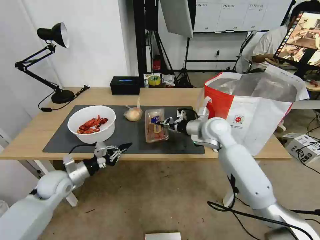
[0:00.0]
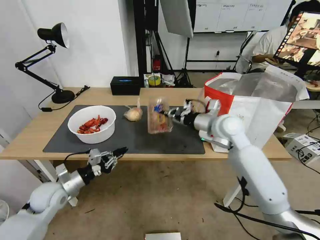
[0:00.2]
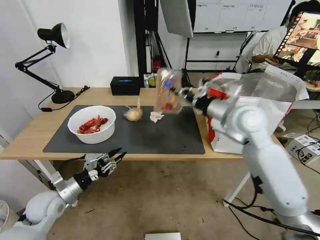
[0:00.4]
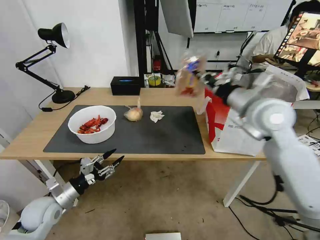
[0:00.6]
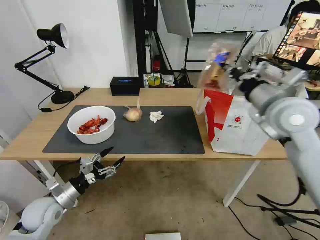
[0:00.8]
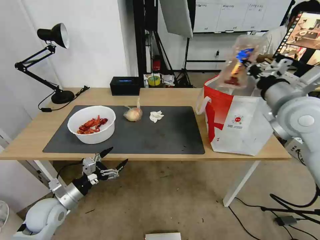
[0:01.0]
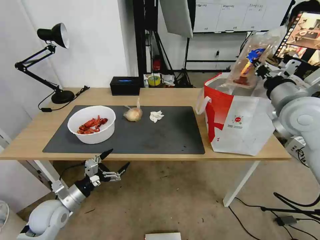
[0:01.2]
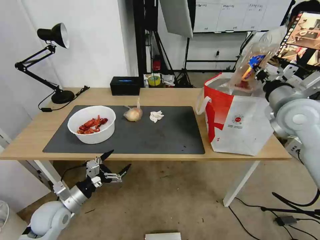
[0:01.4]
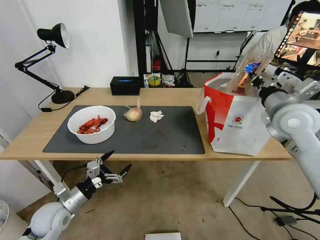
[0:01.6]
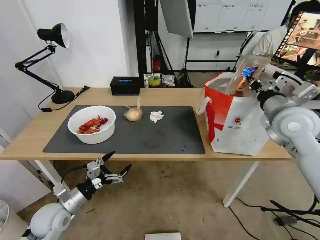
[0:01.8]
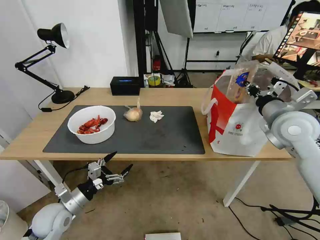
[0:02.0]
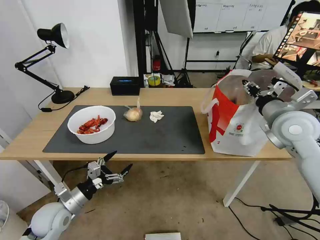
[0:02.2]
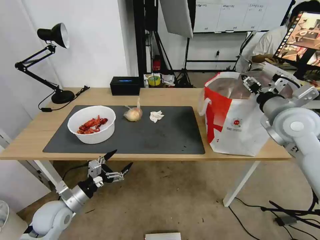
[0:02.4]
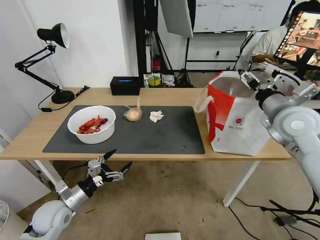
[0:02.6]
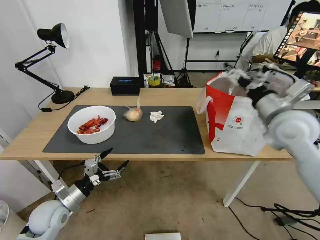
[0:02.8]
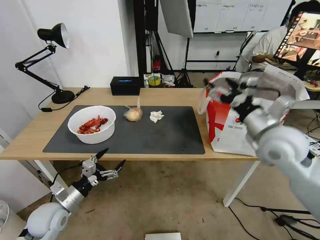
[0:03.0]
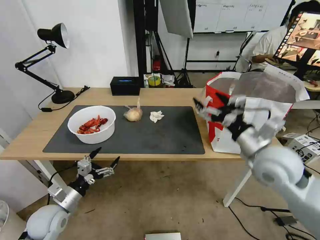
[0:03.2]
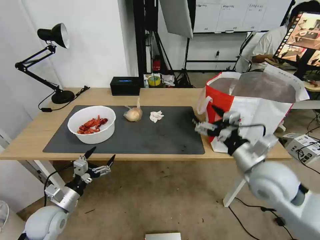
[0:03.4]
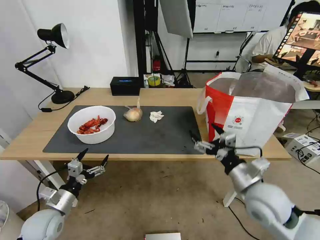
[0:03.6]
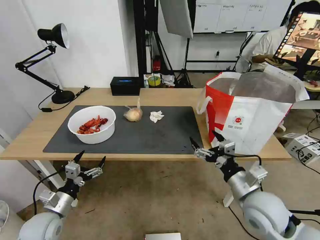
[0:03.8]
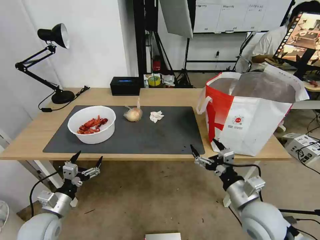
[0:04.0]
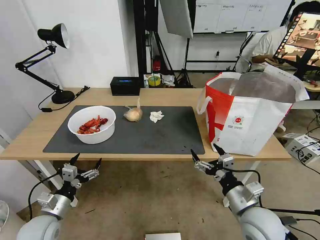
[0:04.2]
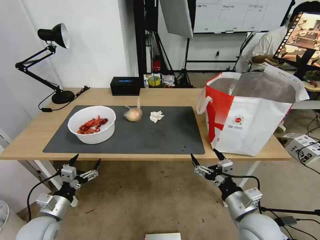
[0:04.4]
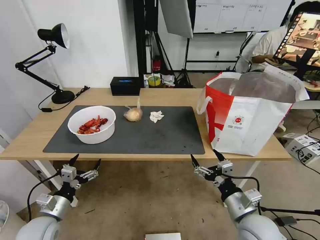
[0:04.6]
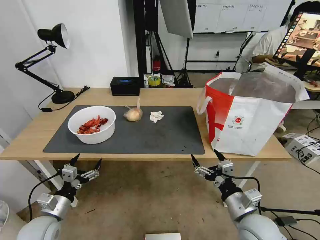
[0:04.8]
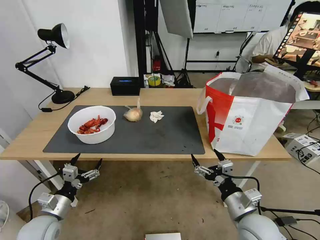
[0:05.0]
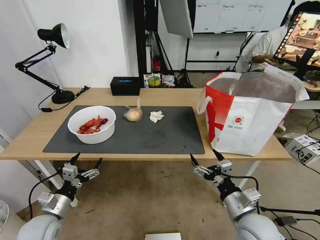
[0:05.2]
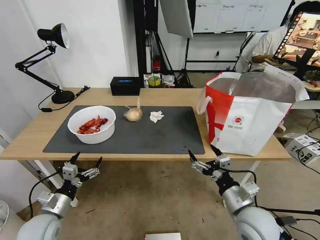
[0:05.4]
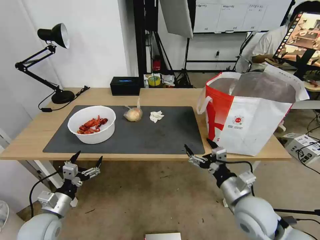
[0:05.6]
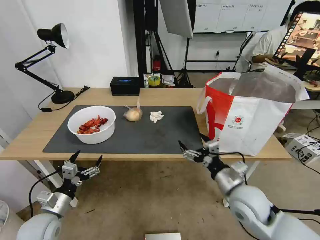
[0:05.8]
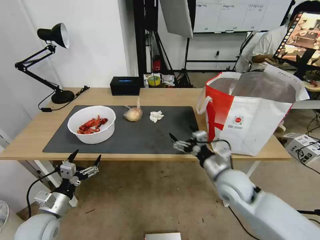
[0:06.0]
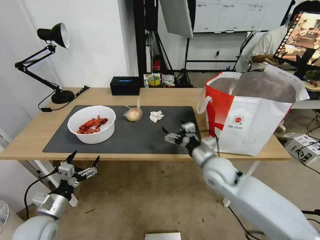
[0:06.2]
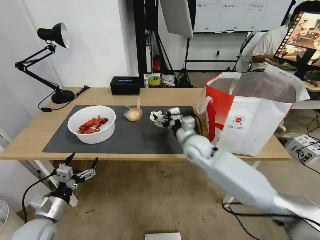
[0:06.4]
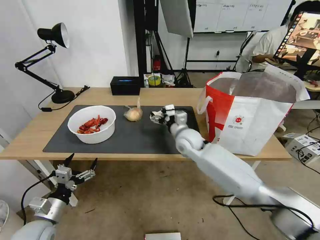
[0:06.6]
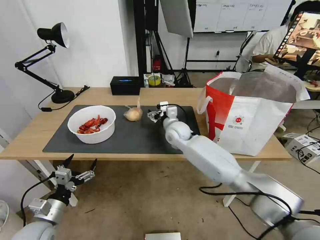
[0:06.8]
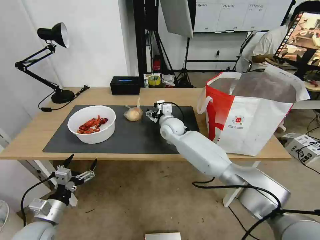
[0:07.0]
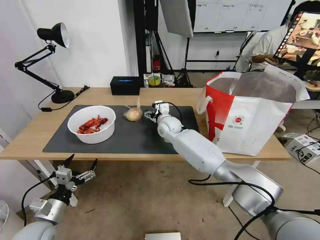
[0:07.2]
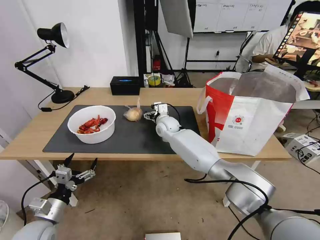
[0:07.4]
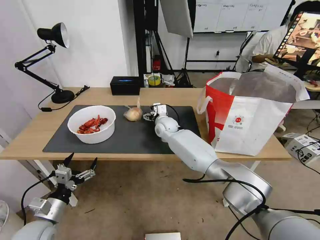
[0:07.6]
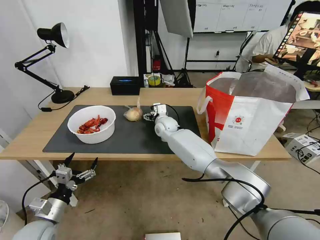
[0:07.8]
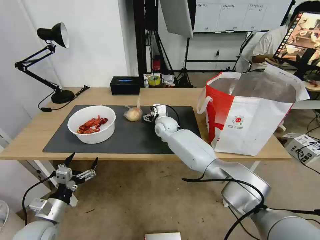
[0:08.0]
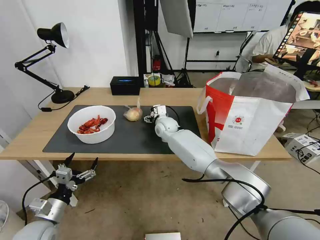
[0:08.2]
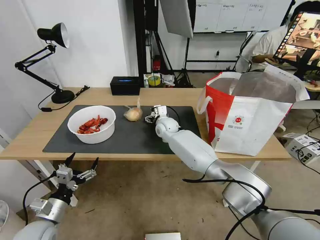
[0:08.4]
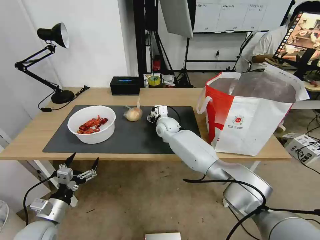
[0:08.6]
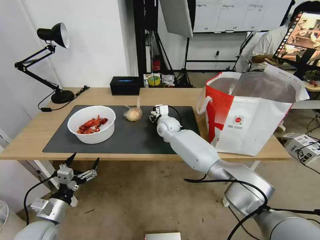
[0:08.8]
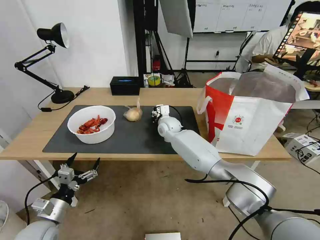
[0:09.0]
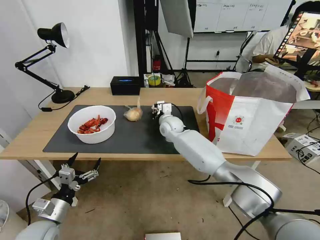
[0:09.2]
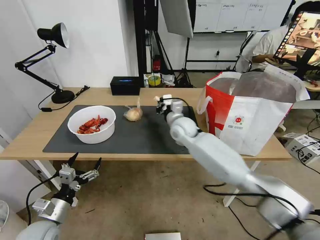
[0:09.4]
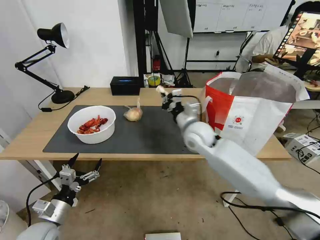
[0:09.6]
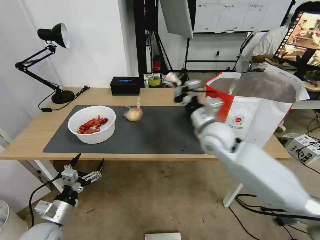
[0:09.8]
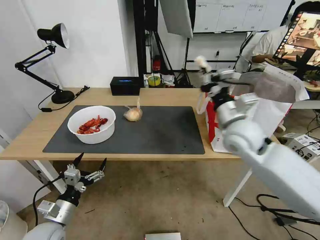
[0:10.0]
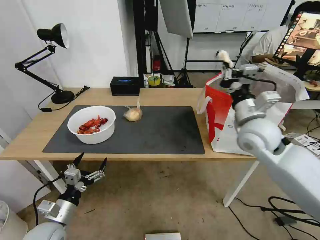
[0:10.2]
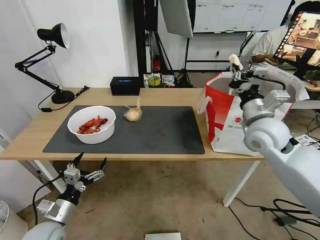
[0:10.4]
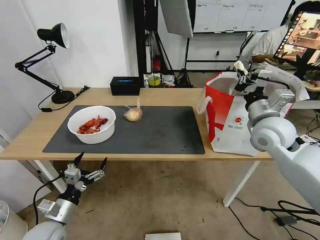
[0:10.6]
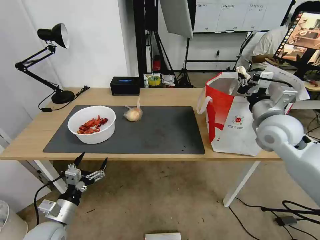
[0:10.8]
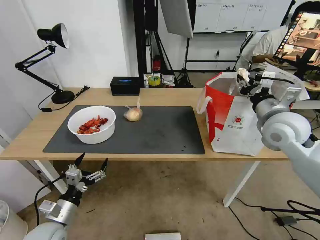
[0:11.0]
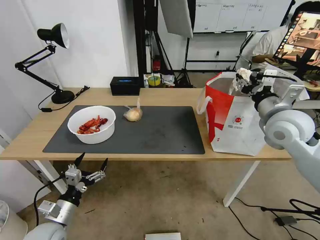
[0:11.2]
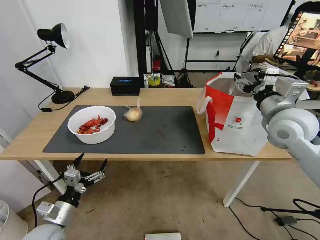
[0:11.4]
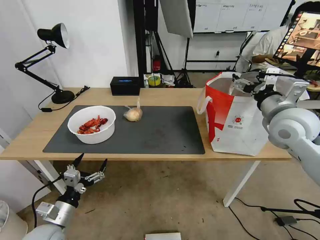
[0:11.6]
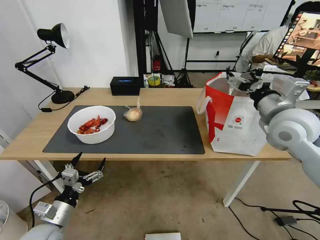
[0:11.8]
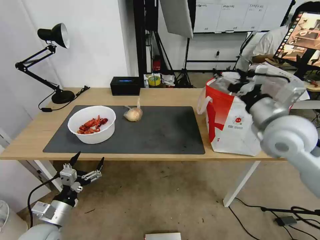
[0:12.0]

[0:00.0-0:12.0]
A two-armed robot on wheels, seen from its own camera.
Task of the whole recording: Pick up the trash from the table and place it into the takeout bag.
0:00.0 to 0:01.6: The left gripper moves backward, roughly 10 cm, and opens. The right gripper moves to the right, upward and backward, some 20 cm.
0:01.6 to 0:03.0: The right gripper moves backward, roughly 5 cm, and opens.
0:03.0 to 0:04.4: The right gripper travels downward and backward by approximately 25 cm.
0:04.4 to 0:06.0: The right gripper shifts approximately 10 cm forward.
0:06.0 to 0:07.6: The right gripper heads forward and to the left, covering roughly 35 cm.
0:07.6 to 0:09.0: The right gripper closes.
0:09.0 to 0:10.4: The right gripper heads to the right, backward and upward, covering approximately 35 cm.
0:10.4 to 0:12.0: The right gripper shifts by some 5 cm, and opens its fingers.

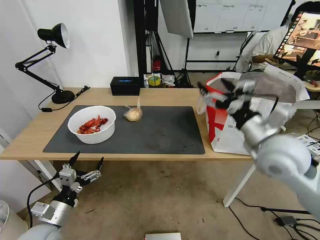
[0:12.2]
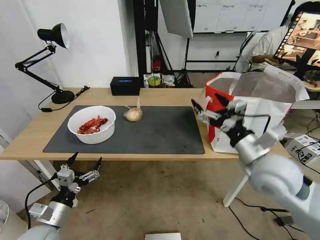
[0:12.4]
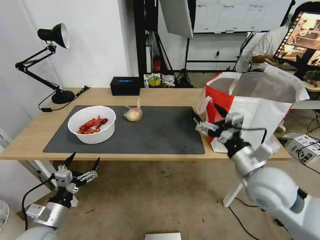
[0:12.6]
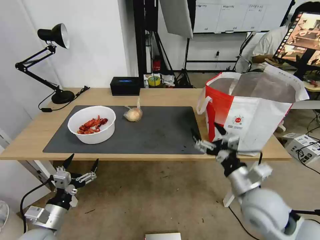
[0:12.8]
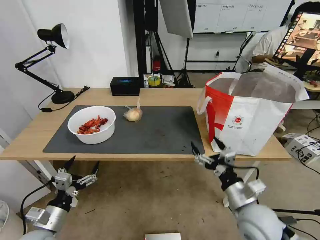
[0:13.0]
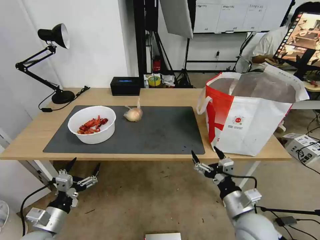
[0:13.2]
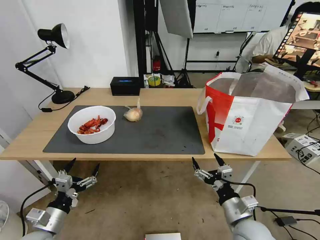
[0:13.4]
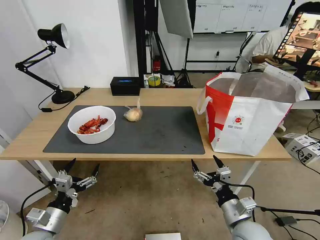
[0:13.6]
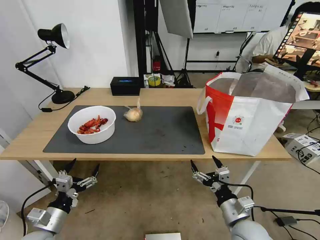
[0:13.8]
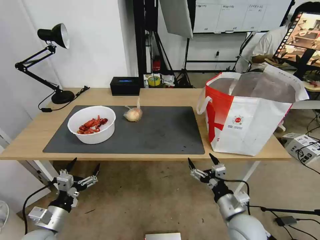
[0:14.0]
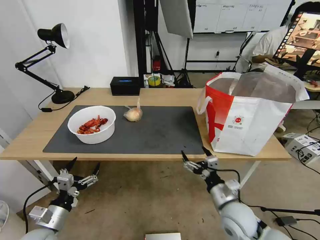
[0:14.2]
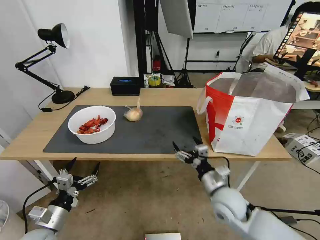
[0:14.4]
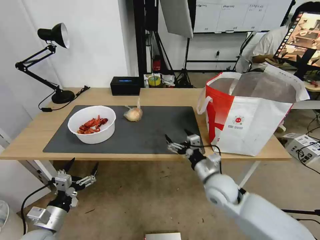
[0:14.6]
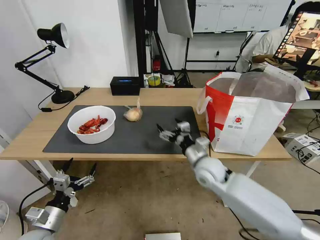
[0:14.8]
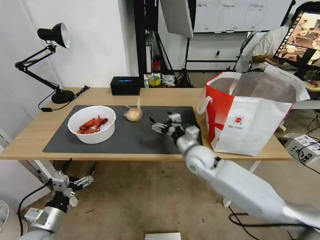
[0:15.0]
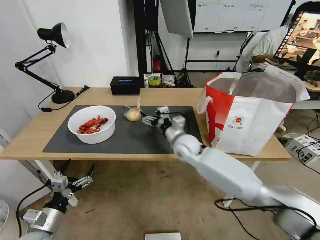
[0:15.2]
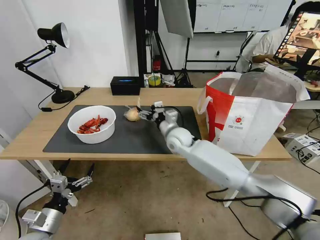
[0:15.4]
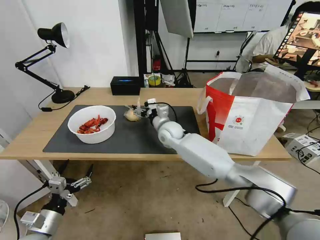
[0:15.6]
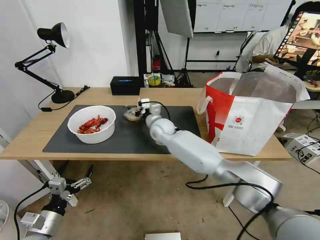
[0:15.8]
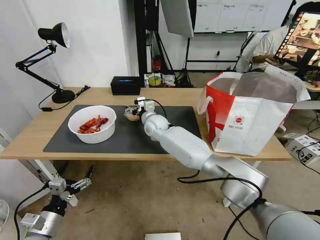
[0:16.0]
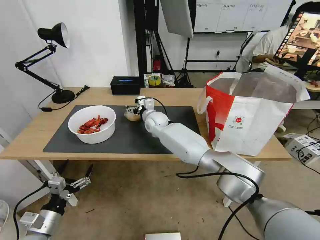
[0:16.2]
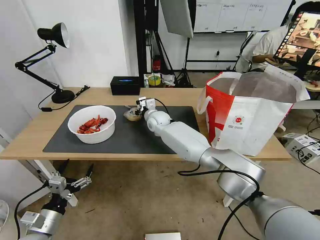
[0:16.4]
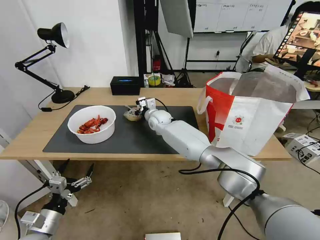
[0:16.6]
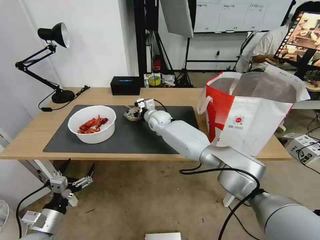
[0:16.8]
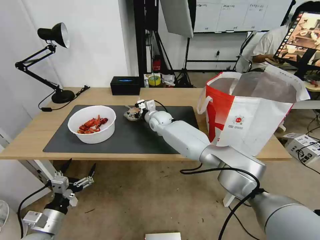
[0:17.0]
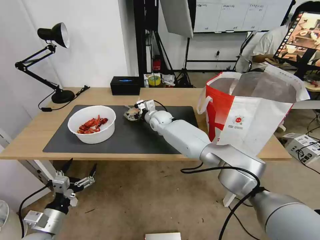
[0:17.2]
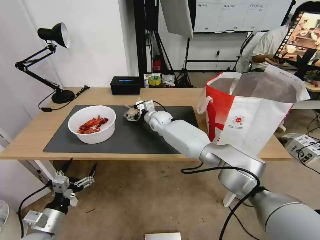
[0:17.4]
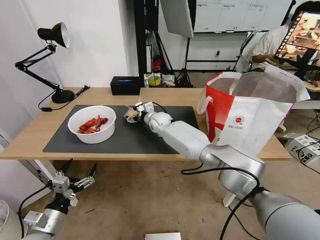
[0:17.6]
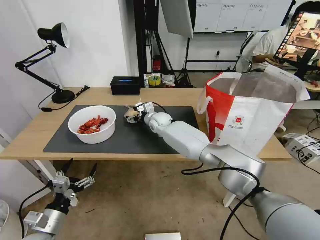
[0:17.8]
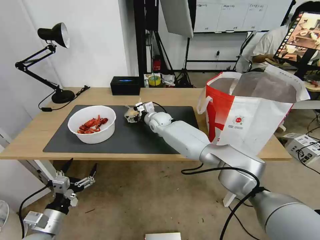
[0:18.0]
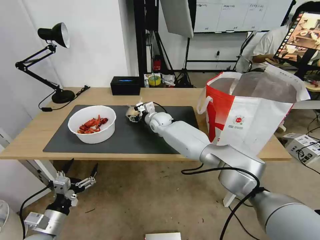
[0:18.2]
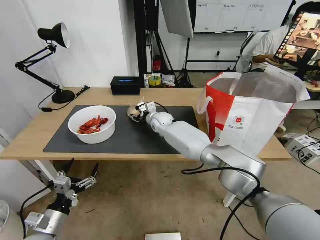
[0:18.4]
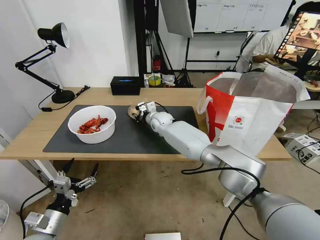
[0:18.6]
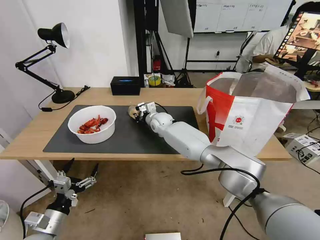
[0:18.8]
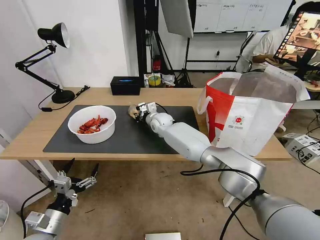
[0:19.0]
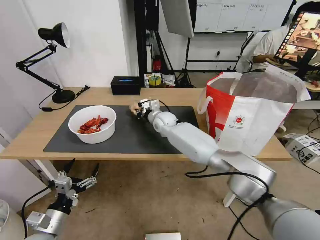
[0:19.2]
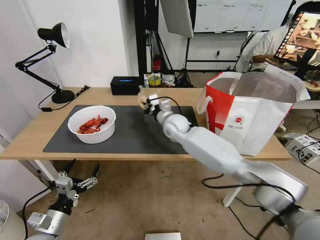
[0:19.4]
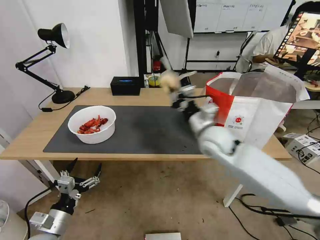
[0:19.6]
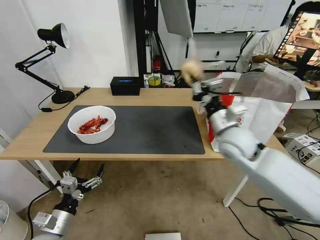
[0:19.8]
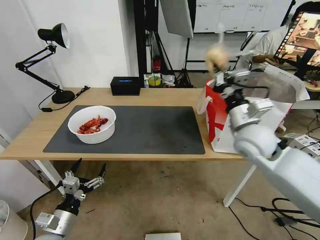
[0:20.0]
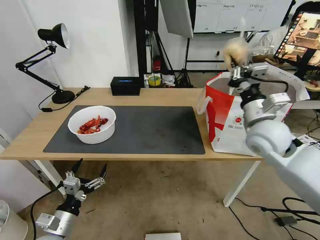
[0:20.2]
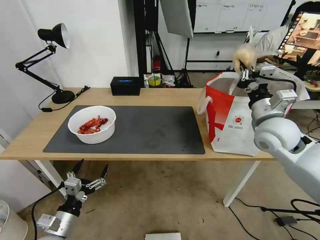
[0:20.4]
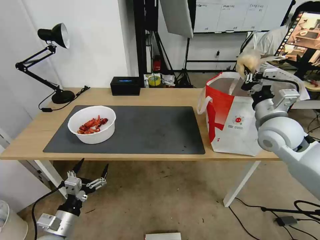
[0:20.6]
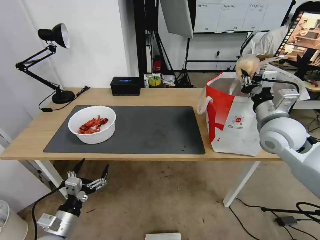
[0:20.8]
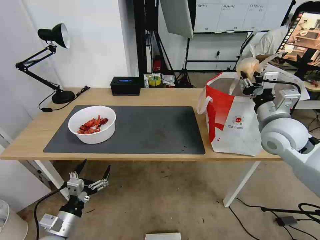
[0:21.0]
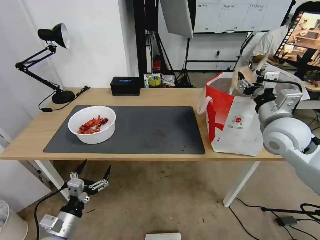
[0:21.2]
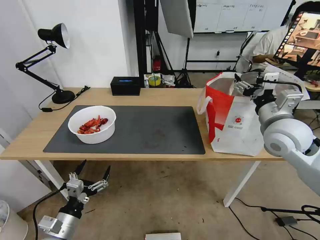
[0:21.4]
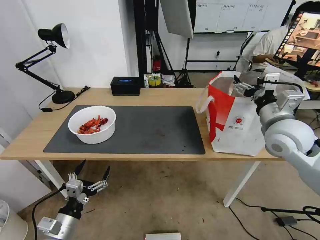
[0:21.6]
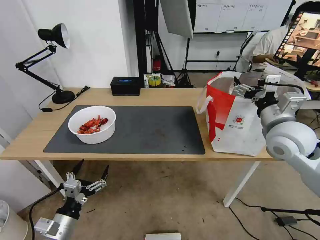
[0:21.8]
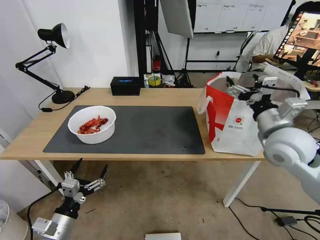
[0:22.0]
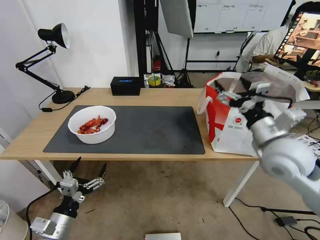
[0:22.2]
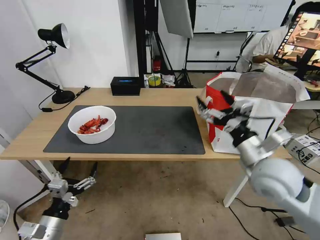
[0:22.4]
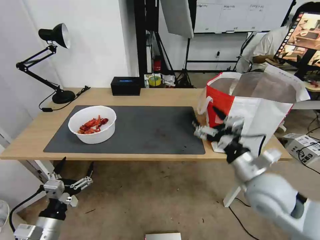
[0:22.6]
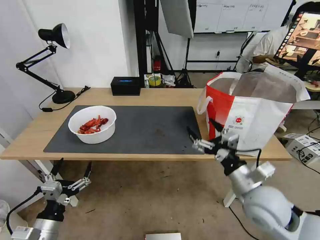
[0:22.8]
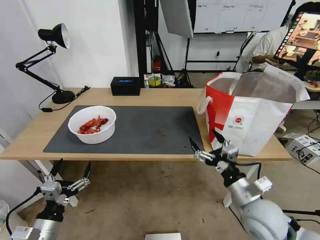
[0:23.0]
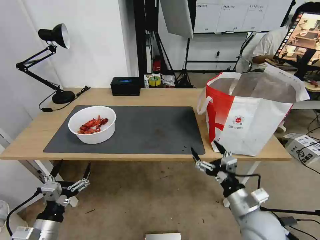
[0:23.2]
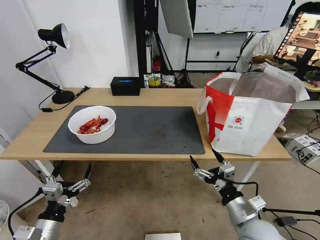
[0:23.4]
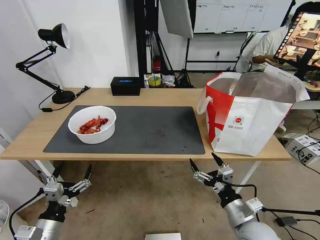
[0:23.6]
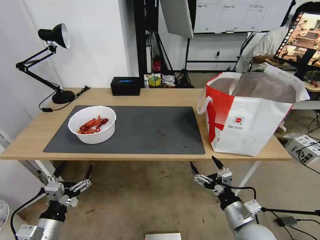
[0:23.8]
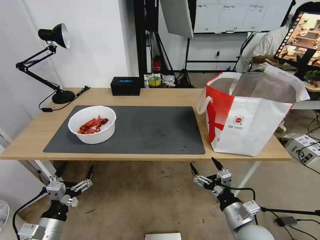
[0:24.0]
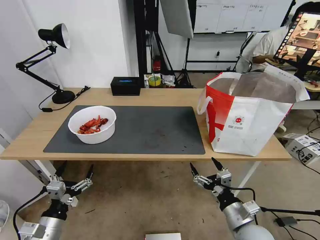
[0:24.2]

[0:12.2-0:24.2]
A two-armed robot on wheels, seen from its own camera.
Task of the whole recording: Pick up the trash from the table and place it into the takeout bag.
0:12.2 to 0:13.8: The right gripper is displaced downward and backward by approximately 25 cm.
0:13.8 to 0:15.2: The right gripper is displaced forward and to the left by about 30 cm.
0:15.2 to 0:16.6: The right gripper heads forward and to the left, covering roughly 15 cm.
0:16.6 to 0:18.2: The grippers make only small movements.
0:18.2 to 0:19.8: The right gripper shifts roughly 30 cm backward, to the right and upward, and closes up.
0:19.8 to 0:21.2: The right gripper heads to the right, covering approximately 10 cm, and opens its fingers.
0:21.2 to 0:22.6: The right gripper shifts some 15 cm backward, downward and to the left.
0:22.6 to 0:24.2: The right gripper heads downward and backward, covering about 15 cm.
